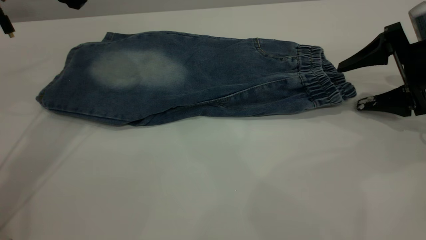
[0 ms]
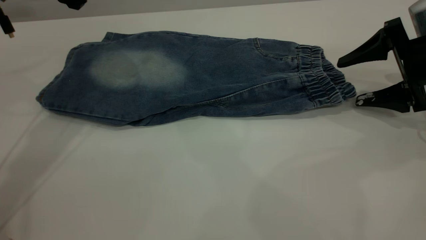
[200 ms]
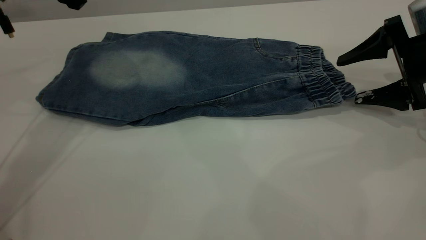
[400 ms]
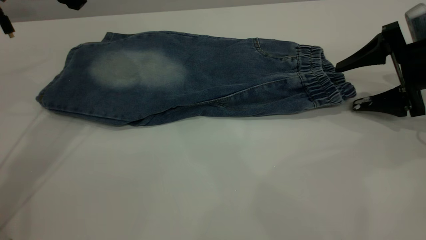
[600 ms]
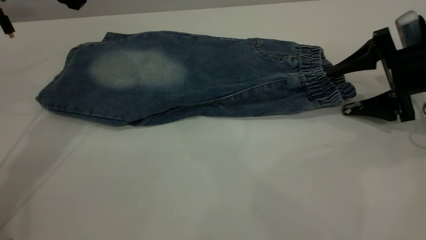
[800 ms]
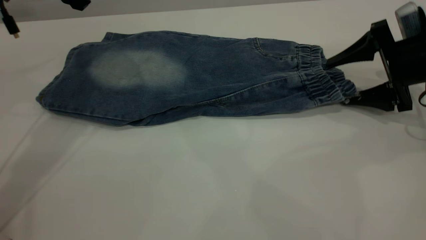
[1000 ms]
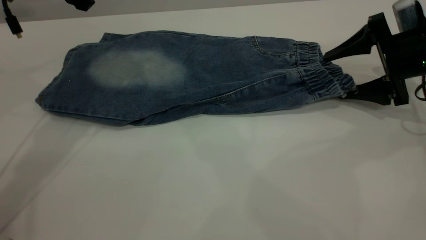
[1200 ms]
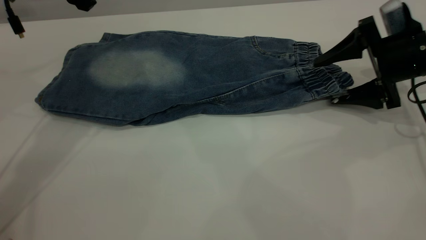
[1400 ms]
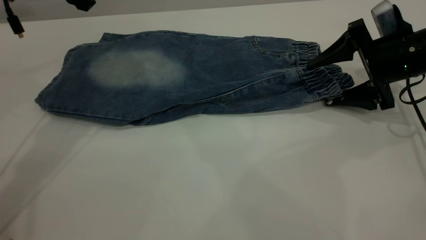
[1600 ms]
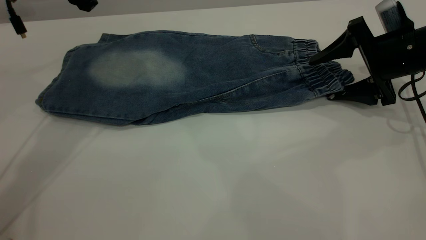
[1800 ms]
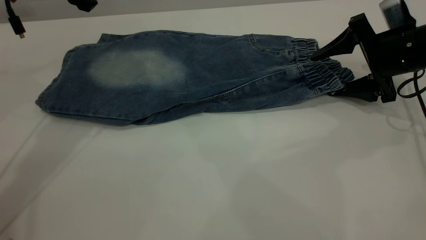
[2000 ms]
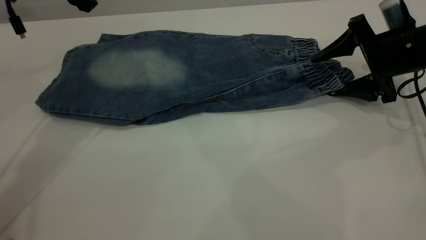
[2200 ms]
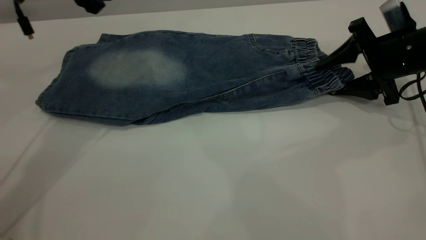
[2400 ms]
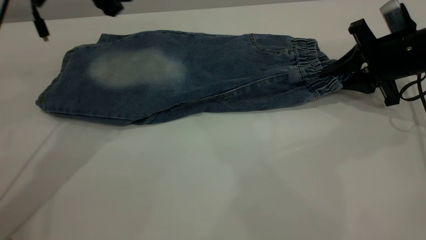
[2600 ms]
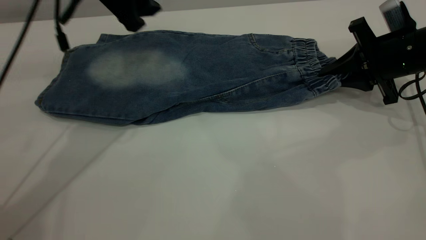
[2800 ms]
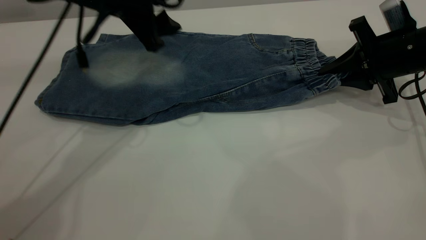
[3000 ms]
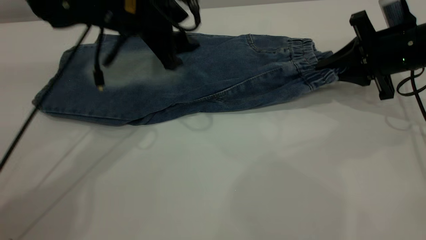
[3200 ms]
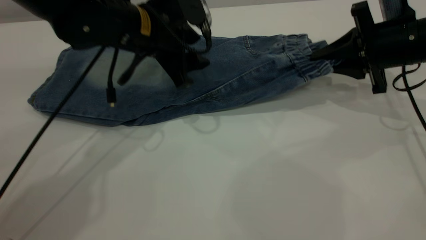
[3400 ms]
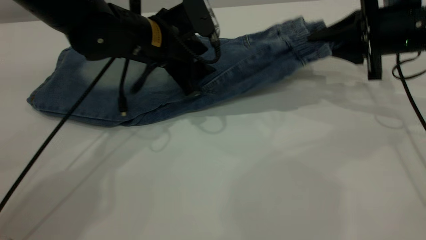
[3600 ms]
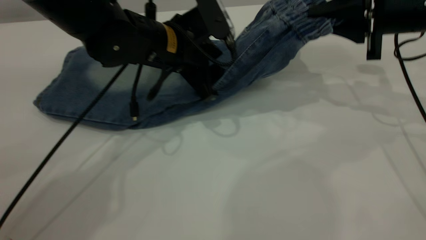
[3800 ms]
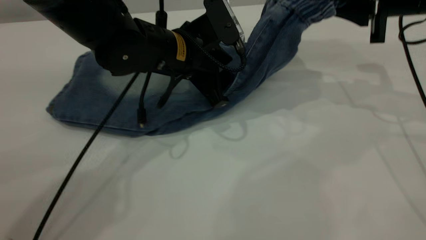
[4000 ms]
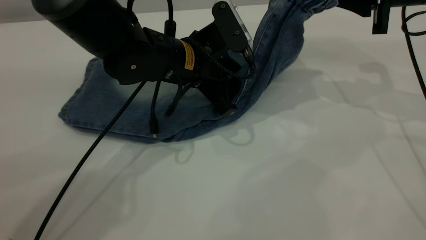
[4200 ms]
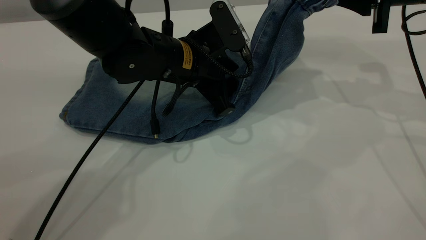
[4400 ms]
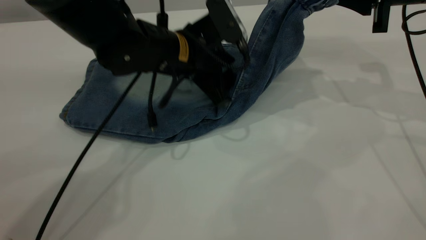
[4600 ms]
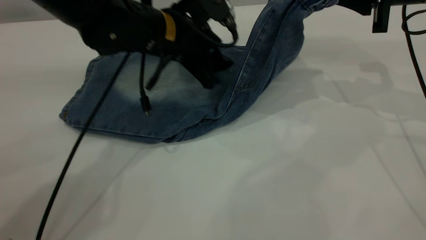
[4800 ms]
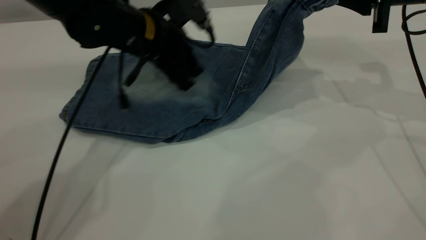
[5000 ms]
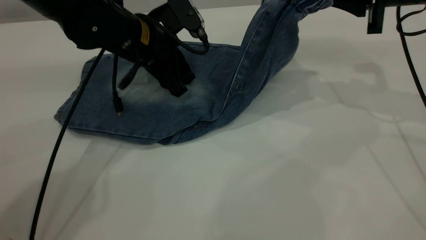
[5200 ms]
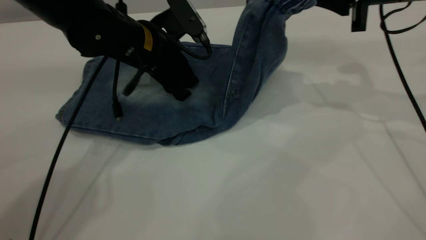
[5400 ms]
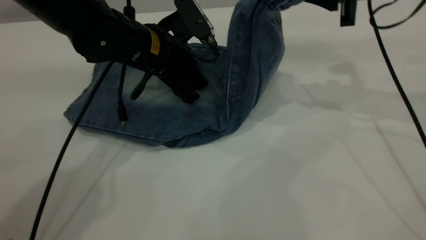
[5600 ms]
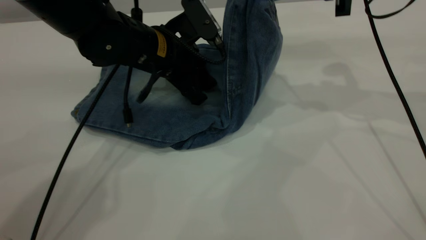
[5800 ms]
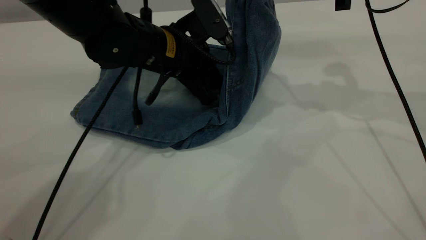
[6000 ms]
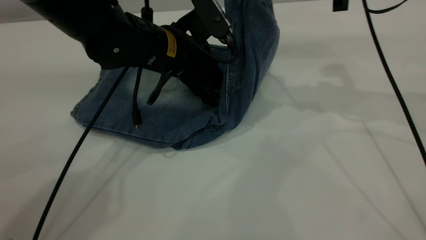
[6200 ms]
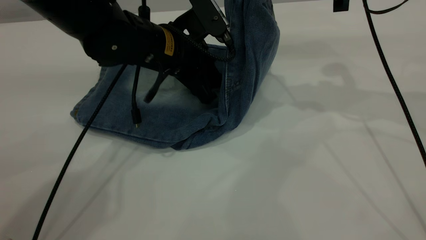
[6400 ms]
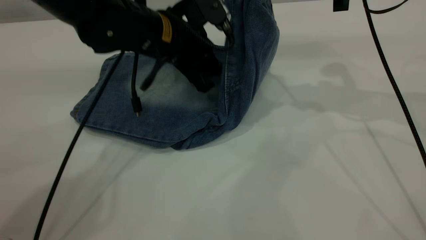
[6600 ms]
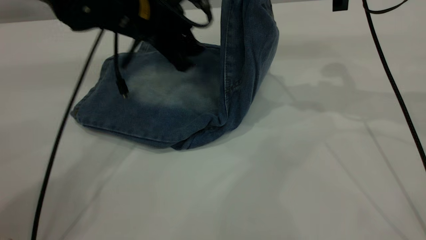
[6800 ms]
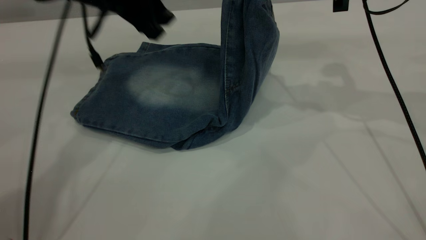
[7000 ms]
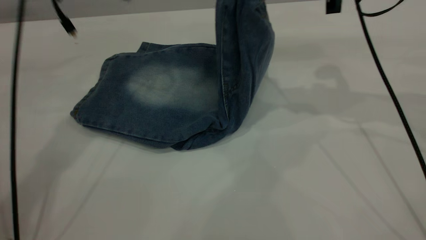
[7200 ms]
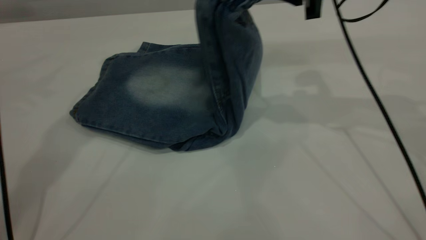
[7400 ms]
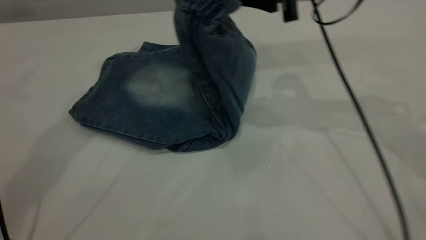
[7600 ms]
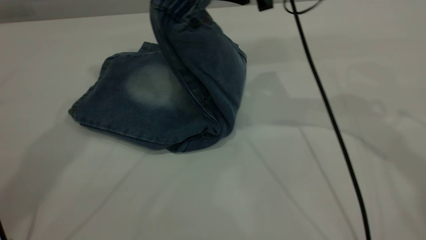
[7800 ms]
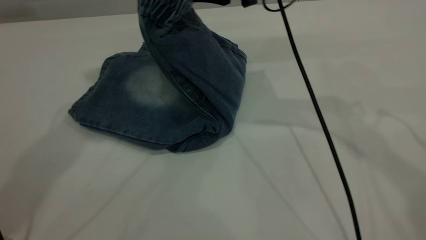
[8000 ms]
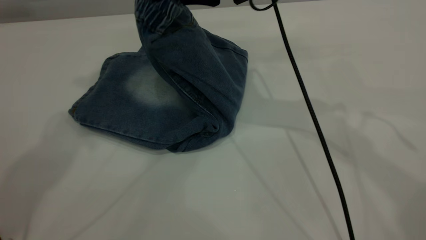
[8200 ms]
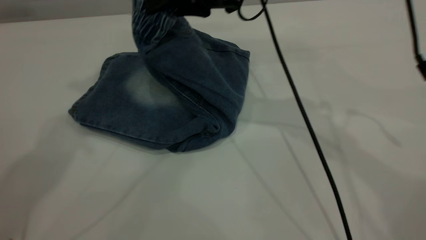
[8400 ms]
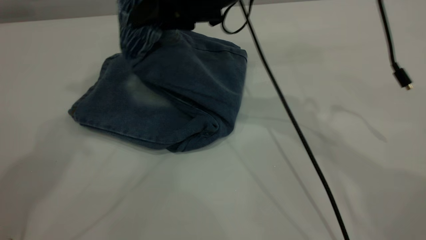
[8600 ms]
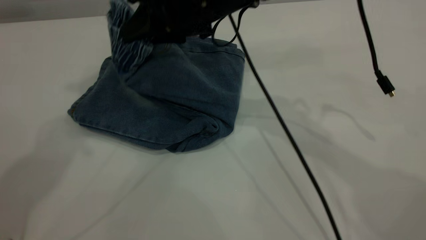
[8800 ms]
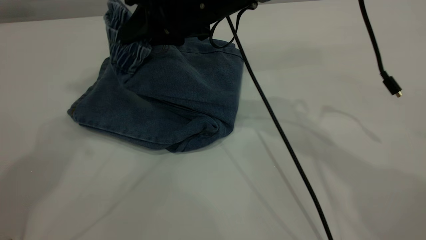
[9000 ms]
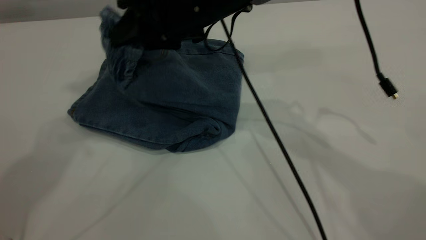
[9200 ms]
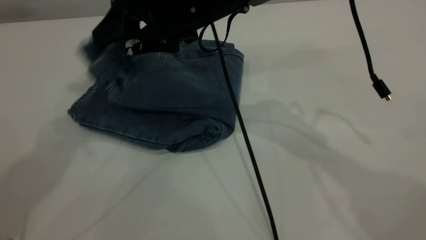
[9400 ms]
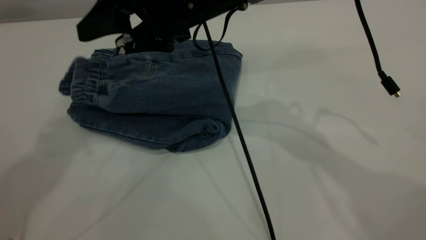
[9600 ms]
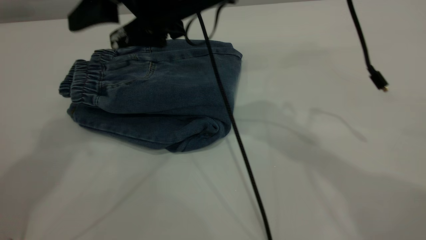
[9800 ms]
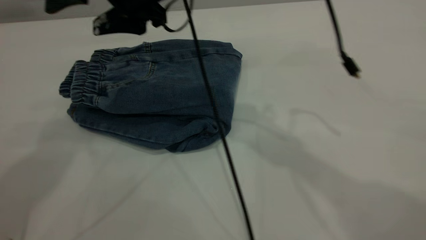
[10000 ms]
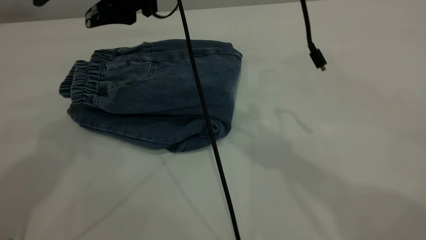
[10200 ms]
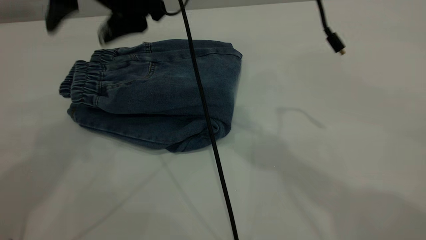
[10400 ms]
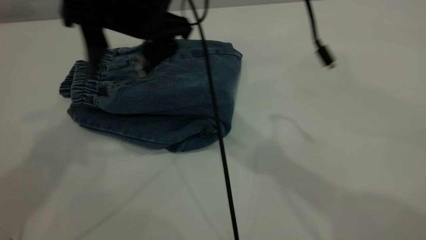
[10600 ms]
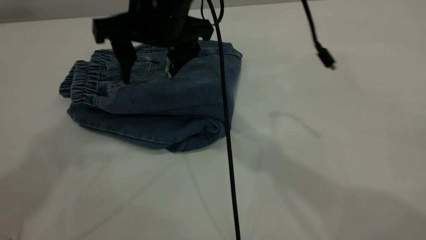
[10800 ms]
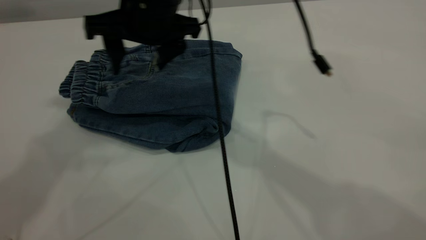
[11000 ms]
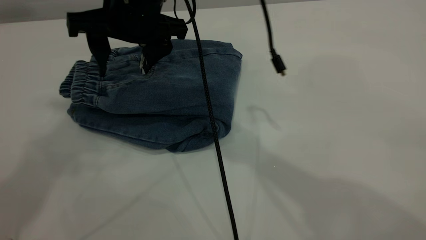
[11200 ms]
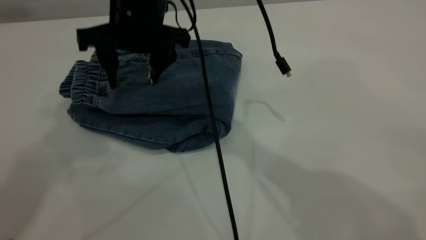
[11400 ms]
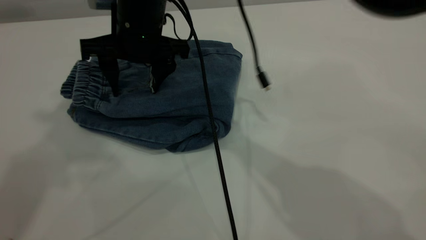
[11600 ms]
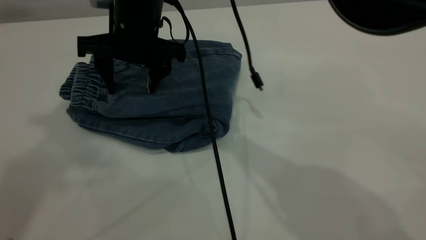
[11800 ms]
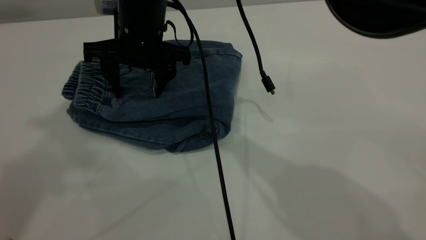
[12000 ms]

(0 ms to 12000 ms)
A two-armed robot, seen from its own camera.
Step, 0 ms - 10200 ms: Fold your pants from right to left.
0 ms - 1600 ms: The grippers stay close to where they were, moving slightly.
1600 ms - 3000 ms: The right gripper closes; the left gripper goes roughly 10 cm to the right and downward.
3000 ms - 4400 ms: The right gripper is displaced upward by approximately 10 cm, while the left gripper moves downward and to the right, some 10 cm.
4400 ms - 6000 ms: The right gripper shifts some 5 cm to the left.
6000 ms - 7600 ms: The left gripper travels upward and to the left by some 30 cm; the right gripper shifts roughly 10 cm to the left.
7600 ms - 9000 ms: The right gripper moves to the left, some 10 cm, while the left gripper is displaced upward and backward by some 10 cm.
9000 ms - 10400 ms: The right gripper is displaced to the left and upward by roughly 10 cm, and opens up.
10400 ms - 12000 ms: The right gripper shifts roughly 10 cm downward. The left gripper travels backward by some 5 cm.

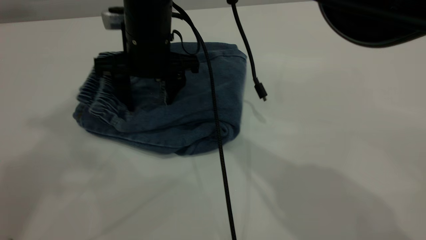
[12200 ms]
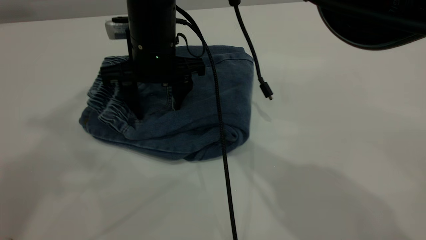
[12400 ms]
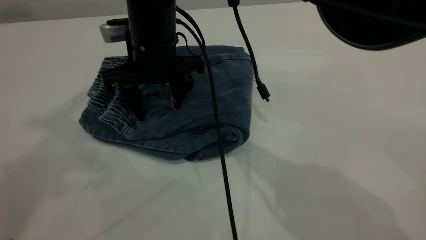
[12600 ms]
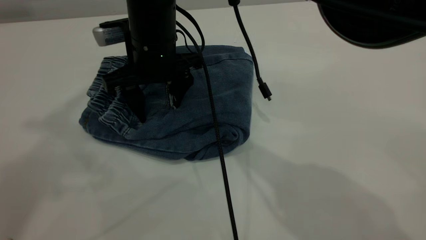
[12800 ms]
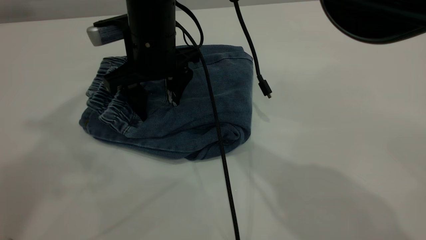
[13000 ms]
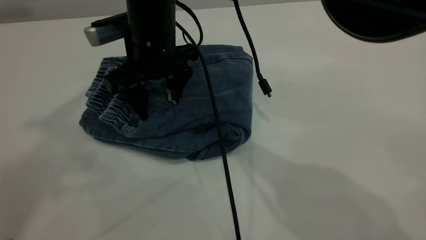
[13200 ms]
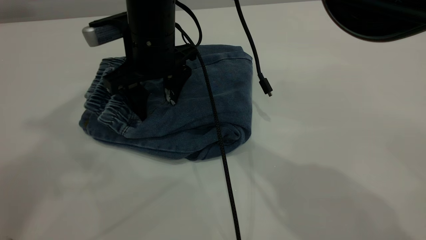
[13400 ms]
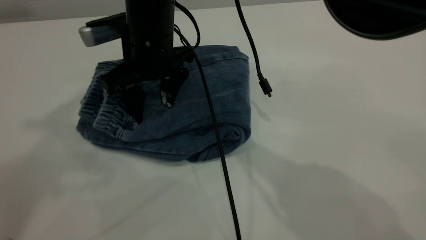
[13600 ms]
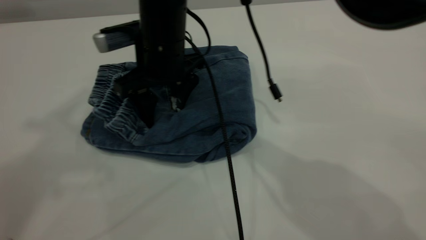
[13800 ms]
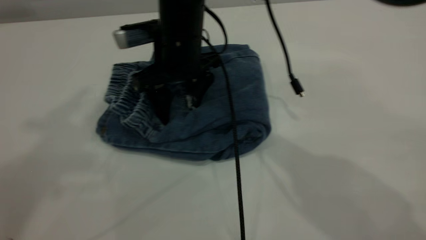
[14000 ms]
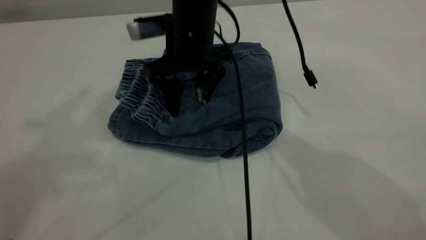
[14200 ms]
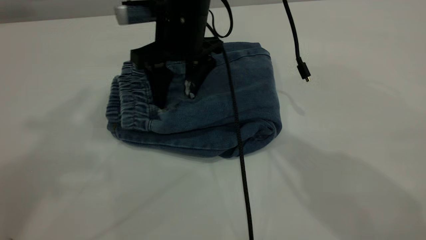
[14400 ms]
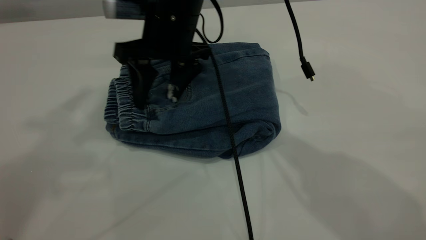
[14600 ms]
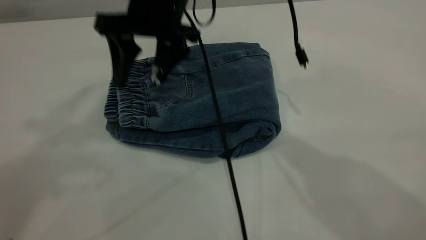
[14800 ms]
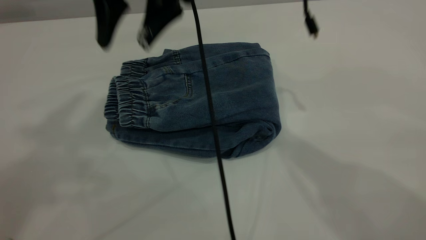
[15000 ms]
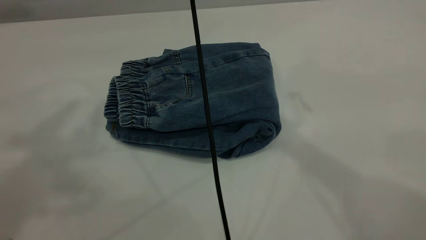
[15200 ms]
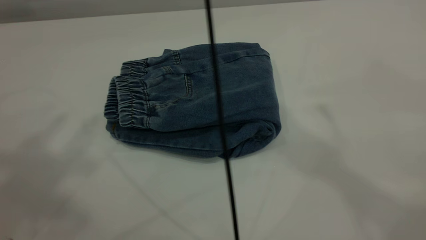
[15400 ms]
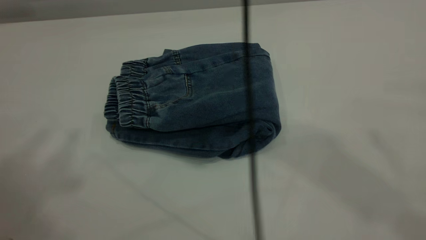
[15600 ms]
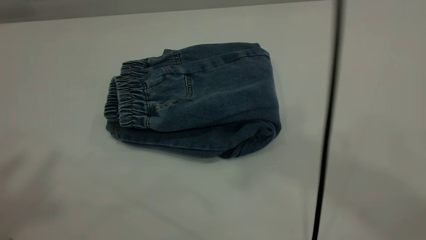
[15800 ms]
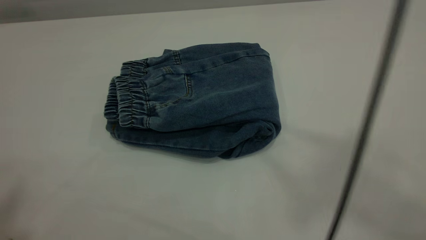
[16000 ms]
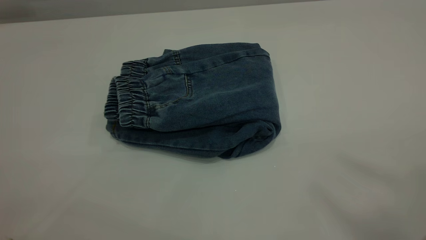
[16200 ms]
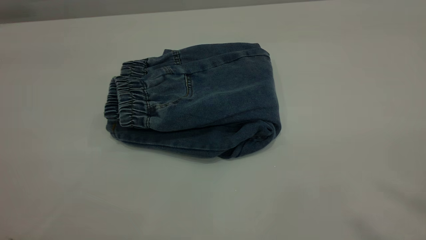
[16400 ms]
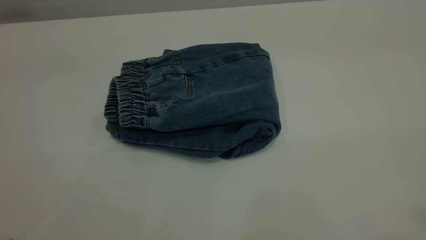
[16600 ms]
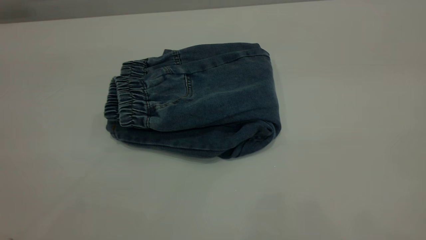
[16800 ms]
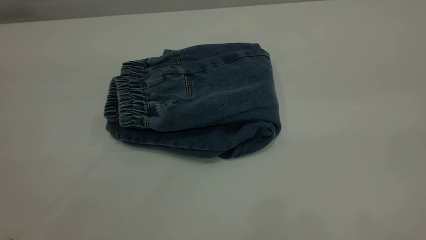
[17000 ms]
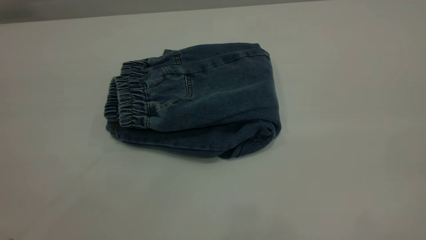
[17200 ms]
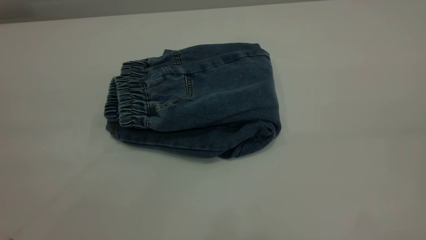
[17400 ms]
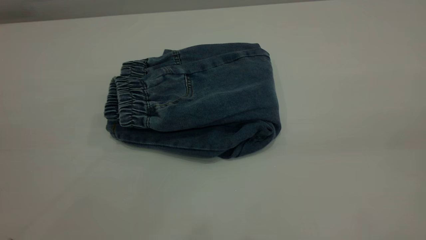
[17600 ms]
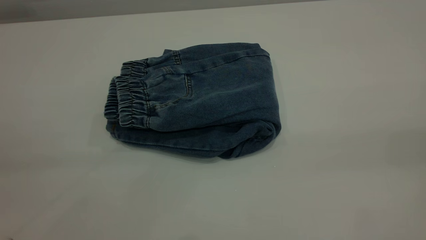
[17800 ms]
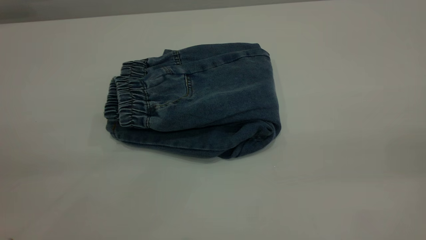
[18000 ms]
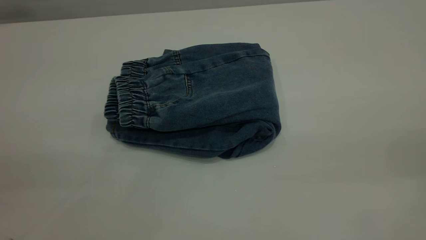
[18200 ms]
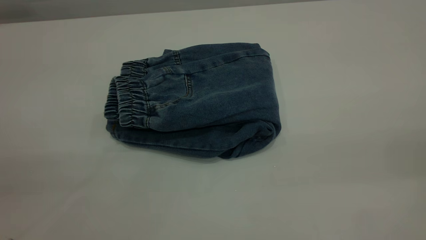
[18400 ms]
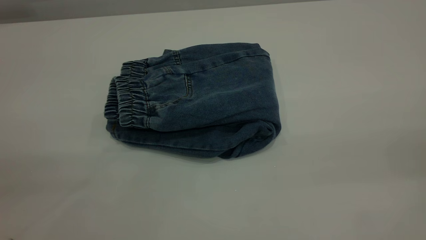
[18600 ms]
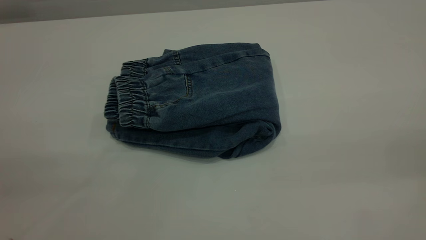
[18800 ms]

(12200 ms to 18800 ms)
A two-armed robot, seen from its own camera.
13800 ms - 15400 ms: The left gripper goes some 5 cm backward. Meanwhile the right gripper shifts approximately 30 cm upward.
15400 ms - 17200 ms: The left gripper heads backward and downward, covering roughly 15 cm; the right gripper is displaced backward and to the right by some 40 cm.
